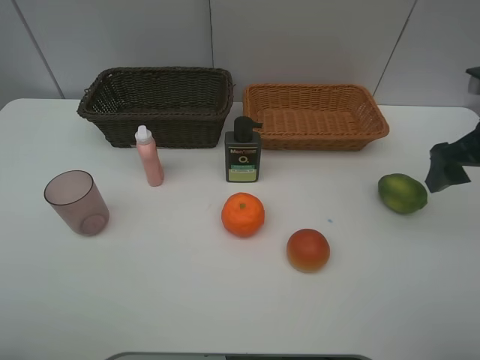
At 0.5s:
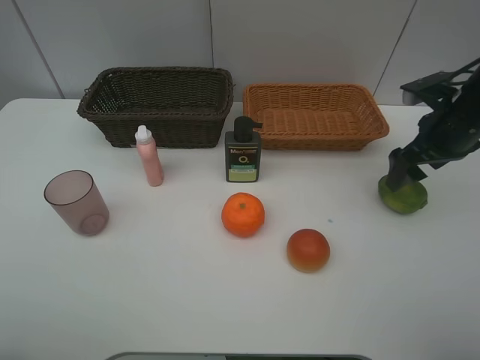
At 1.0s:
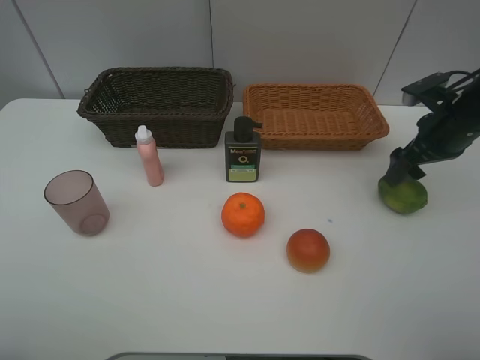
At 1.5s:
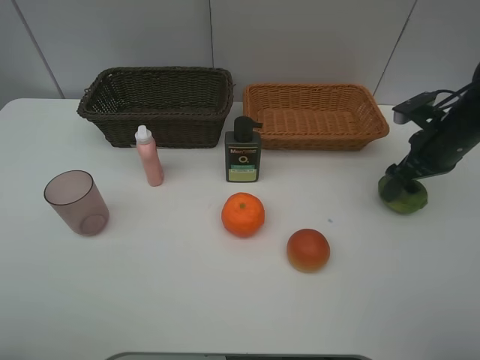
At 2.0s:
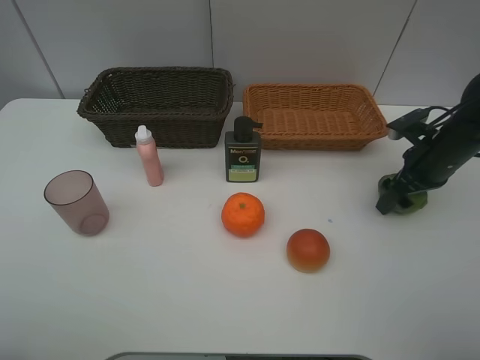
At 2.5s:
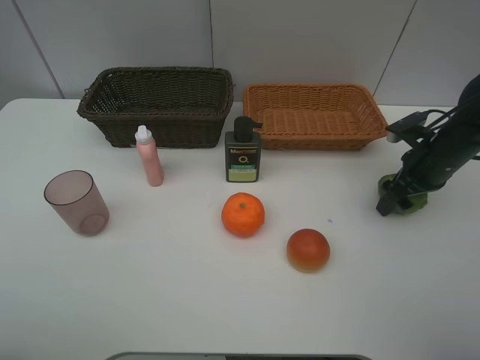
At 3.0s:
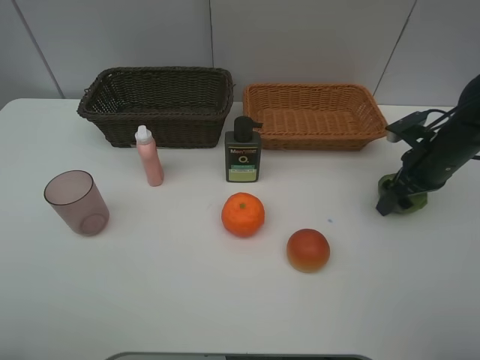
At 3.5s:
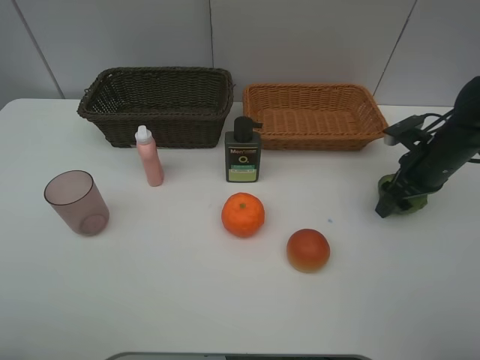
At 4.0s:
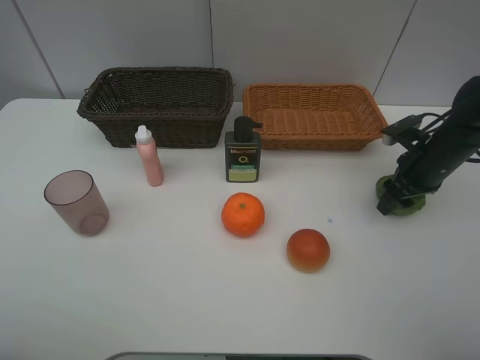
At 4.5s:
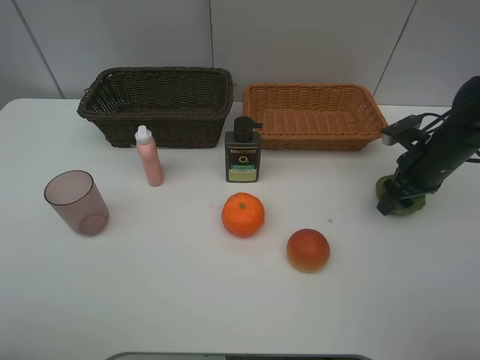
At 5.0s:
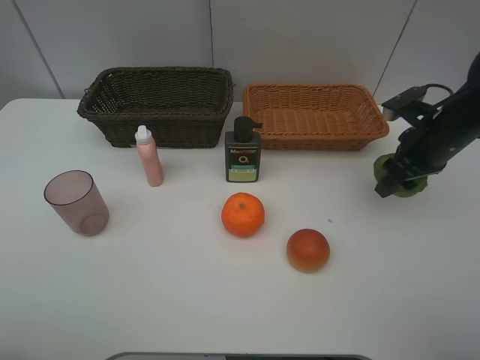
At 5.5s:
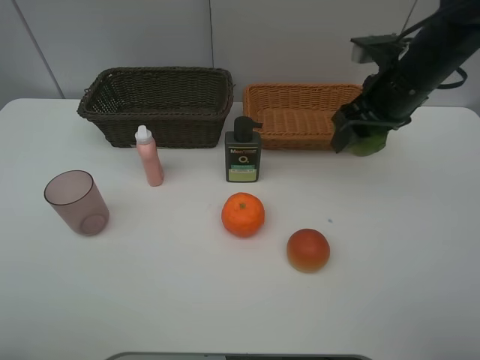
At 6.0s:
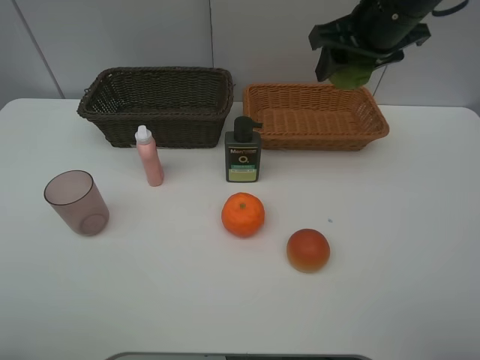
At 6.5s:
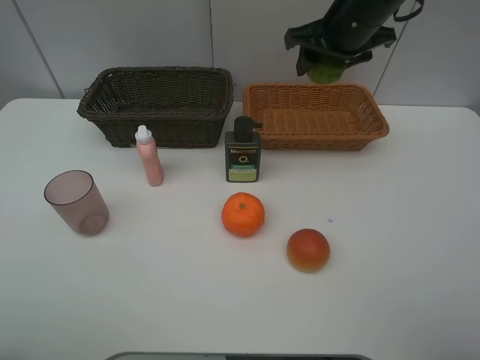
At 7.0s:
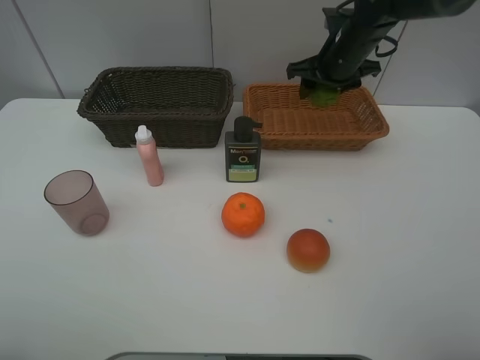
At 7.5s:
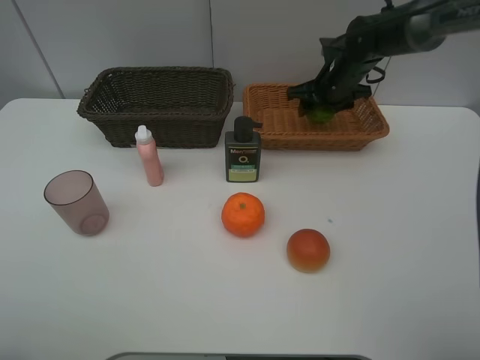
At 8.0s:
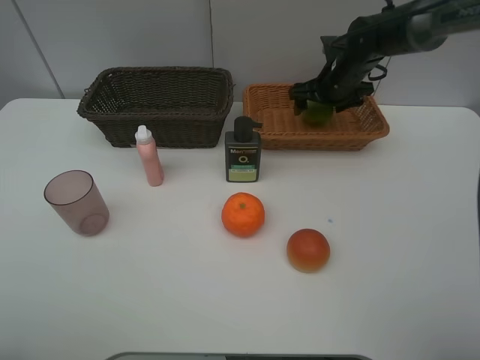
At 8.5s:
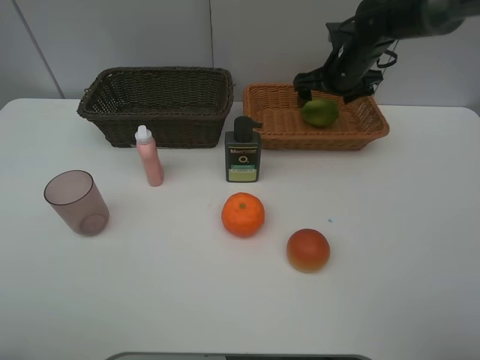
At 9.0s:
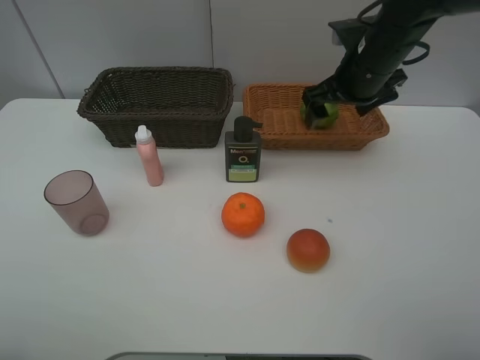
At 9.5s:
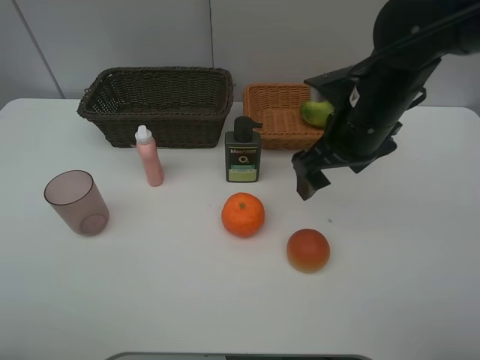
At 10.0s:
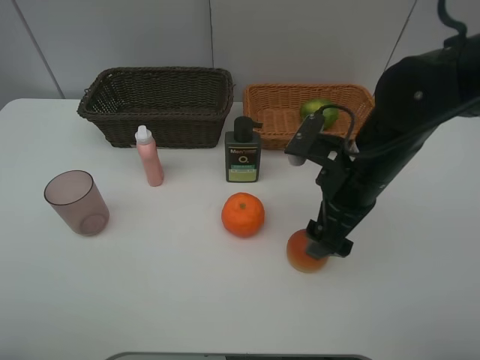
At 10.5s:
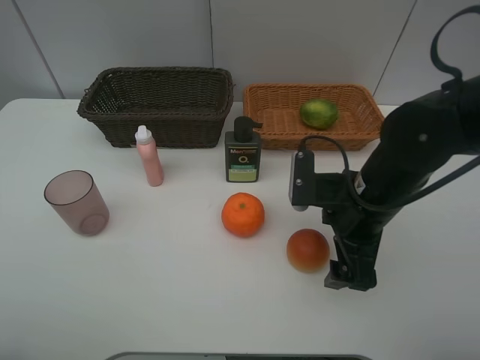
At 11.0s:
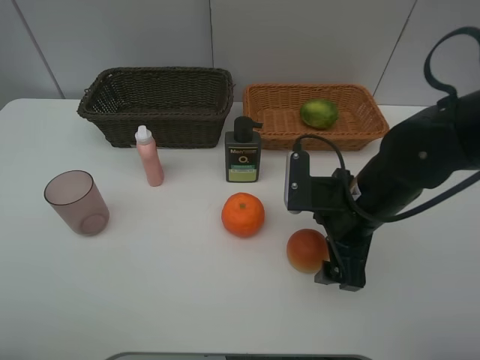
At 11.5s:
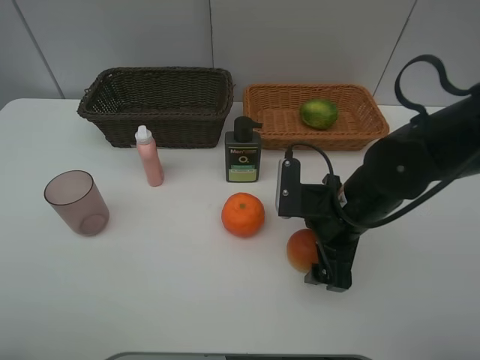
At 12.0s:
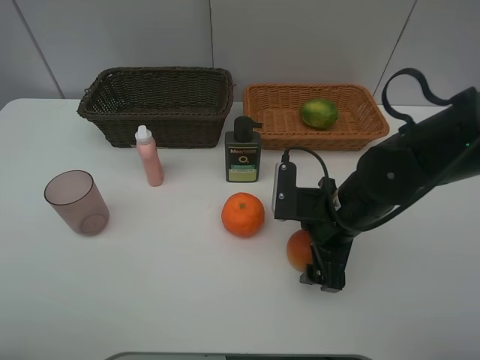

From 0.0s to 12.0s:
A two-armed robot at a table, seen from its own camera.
Task of the whole recording: place multiple objects separately in different baskets.
From 0.0s to 2.0s: The right gripper heads downward and forward, covering approximately 15 cm.
From 2.0s to 4.0s: The right gripper closes.
From 4.0s to 6.0s: The right gripper moves upward and to the left, some 25 cm.
From 6.0s to 8.0s: The right gripper goes approximately 20 cm downward and forward, and opens up.
From 8.0s to 10.0s: The right gripper travels backward by some 25 cm.
From 10.0s to 12.0s: The right gripper heads downward, covering roughly 5 cm.

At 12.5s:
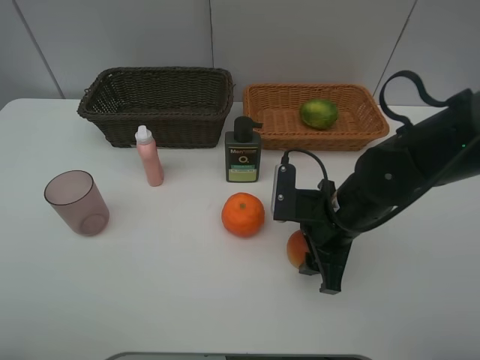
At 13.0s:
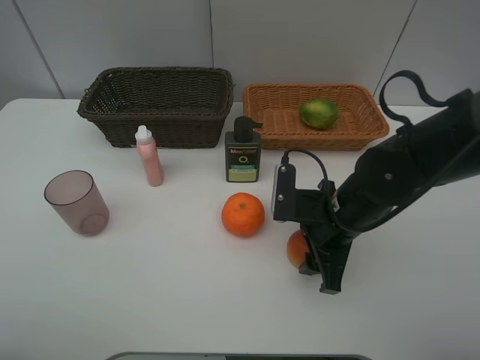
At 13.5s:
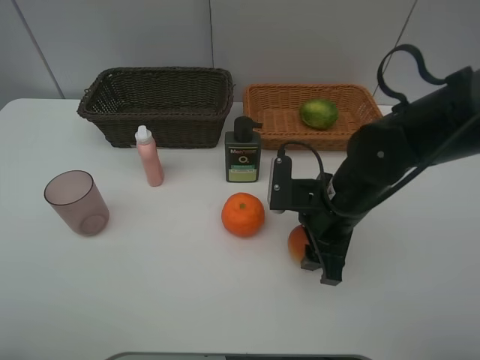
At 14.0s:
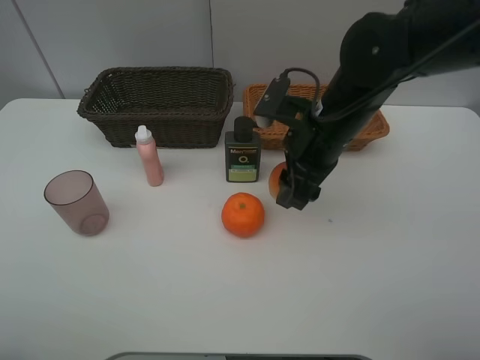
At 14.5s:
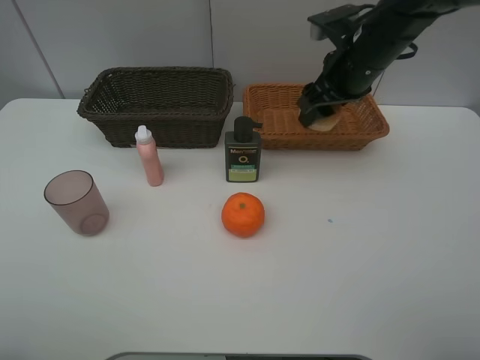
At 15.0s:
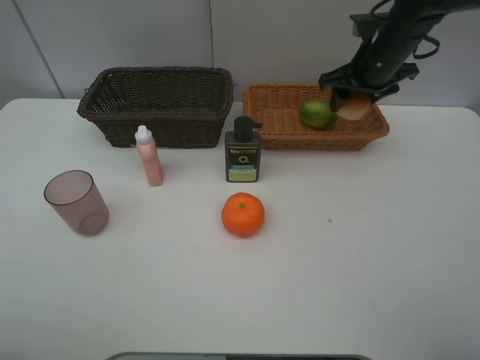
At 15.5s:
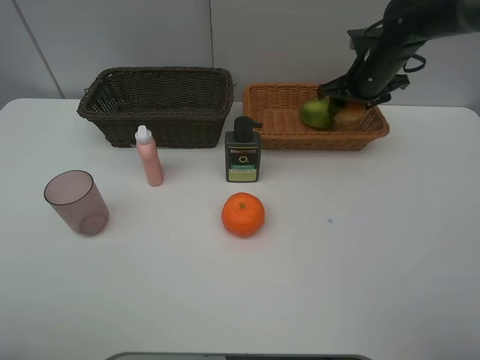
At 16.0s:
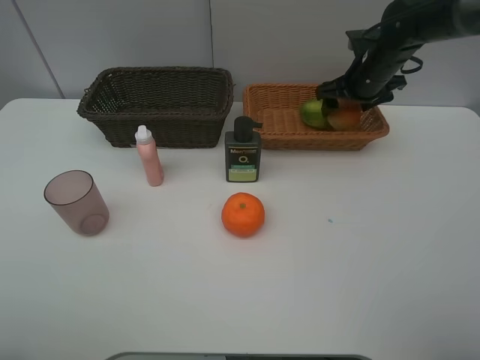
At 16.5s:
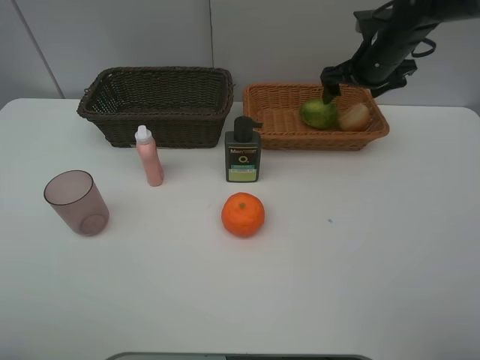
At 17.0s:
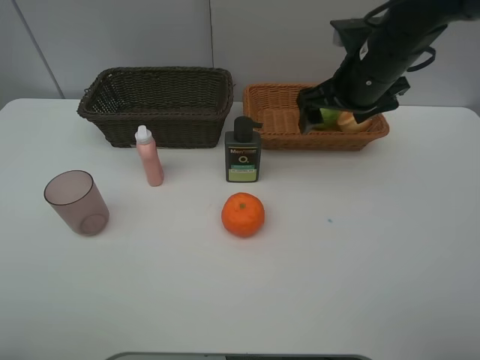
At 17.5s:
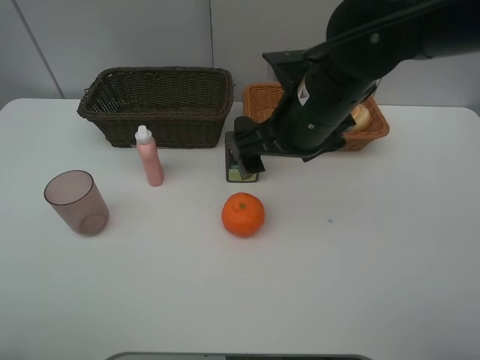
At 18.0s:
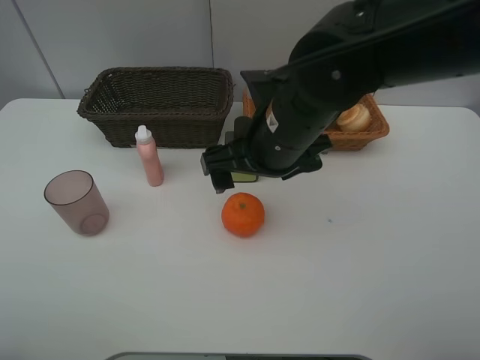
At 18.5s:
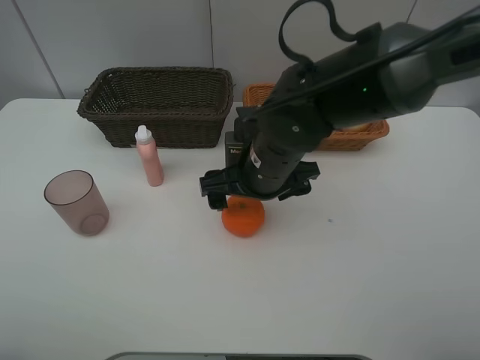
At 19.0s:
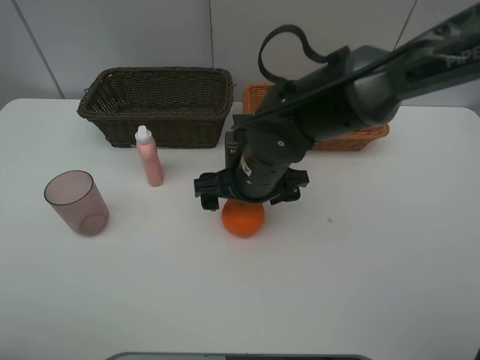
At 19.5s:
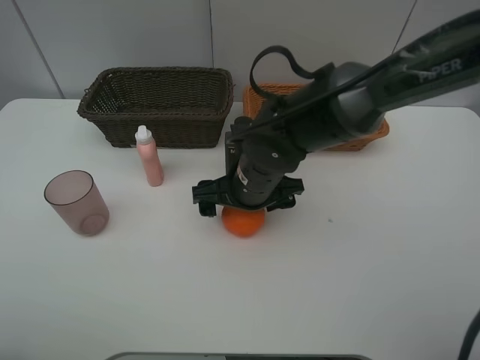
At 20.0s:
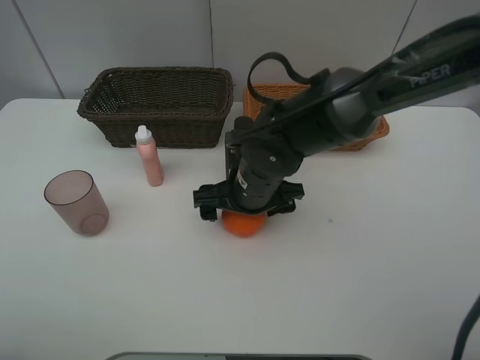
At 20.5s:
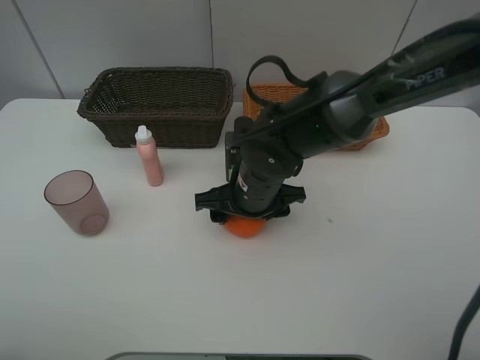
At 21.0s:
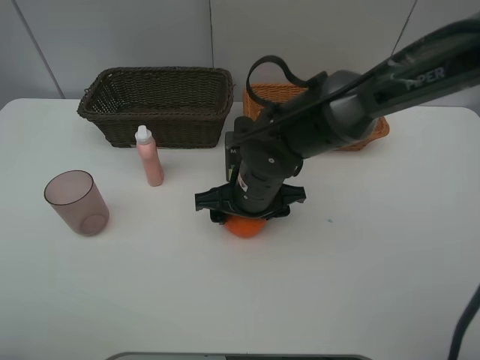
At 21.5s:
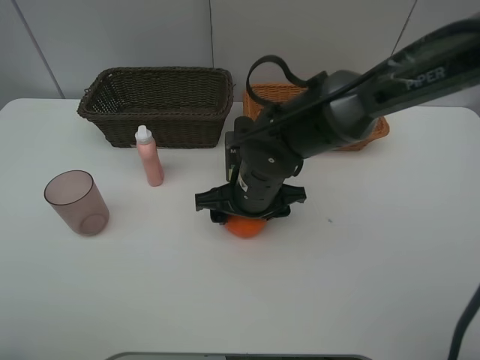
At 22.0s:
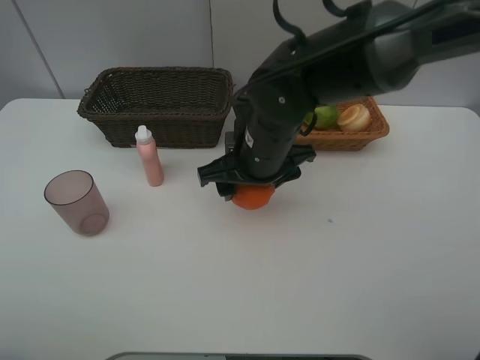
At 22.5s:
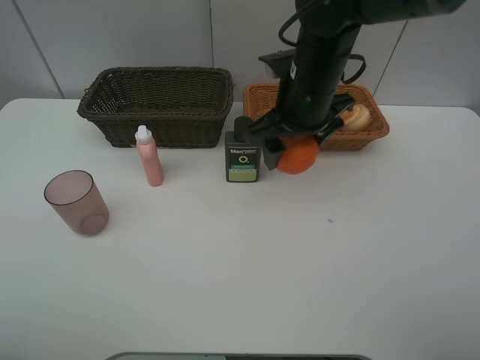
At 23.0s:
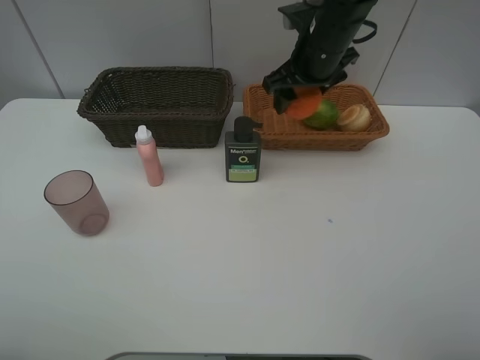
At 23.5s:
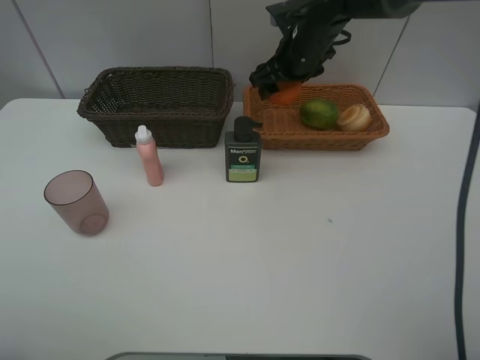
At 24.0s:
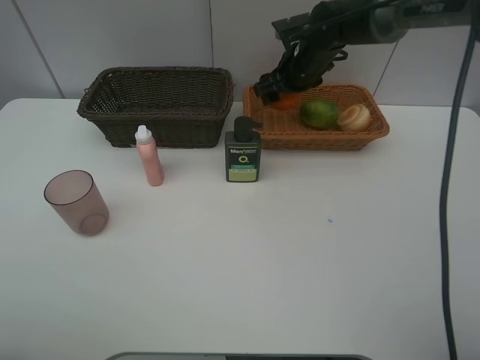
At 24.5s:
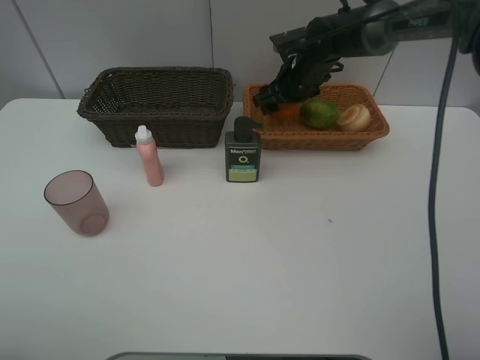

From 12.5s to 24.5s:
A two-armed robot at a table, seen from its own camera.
Task of the whole recording: place multiple objects separately in different baskets.
From 12.5s to 14.5s: The right gripper travels forward and upward by roughly 20 cm.
From 14.5s to 16.5s: The right gripper is displaced forward and to the right by approximately 10 cm, and opens.
From 16.5s to 18.5s: The right gripper goes approximately 25 cm to the left and backward.
From 18.5s to 20.5s: The right gripper moves about 5 cm, and closes its fingers.
From 20.5s to 22.5s: The right gripper is displaced upward, to the right and forward by some 15 cm.
From 22.5s to 24.5s: The right gripper heads forward and downward, covering some 15 cm.

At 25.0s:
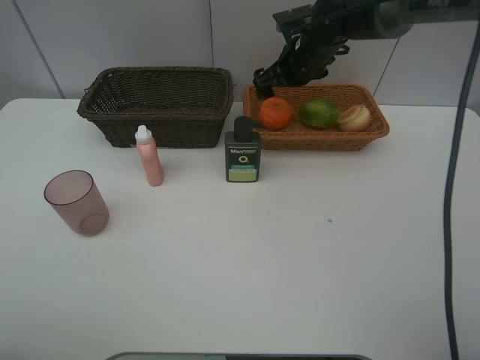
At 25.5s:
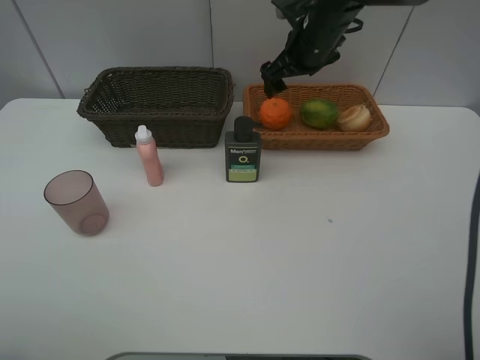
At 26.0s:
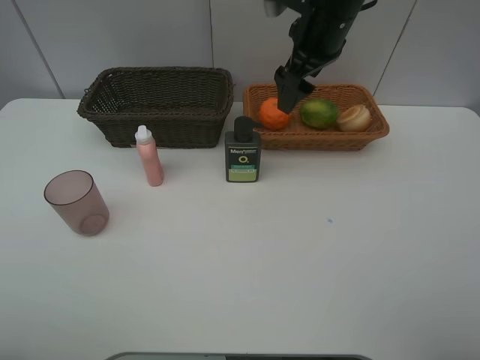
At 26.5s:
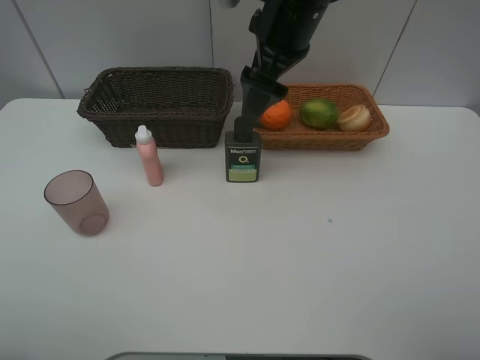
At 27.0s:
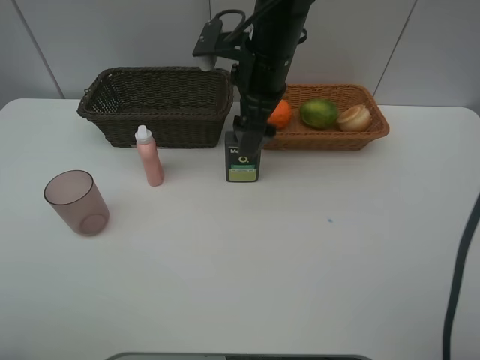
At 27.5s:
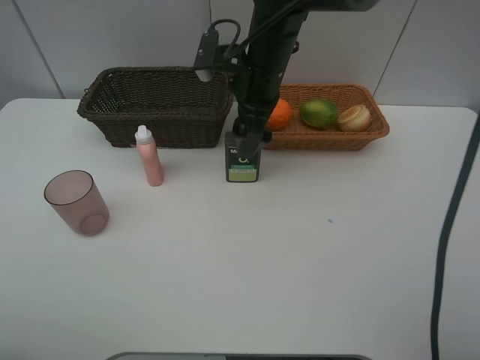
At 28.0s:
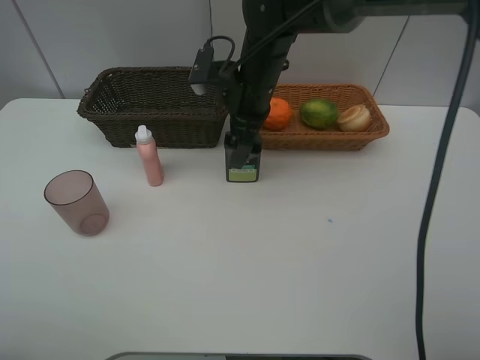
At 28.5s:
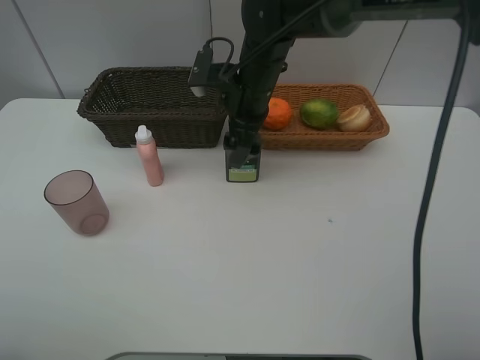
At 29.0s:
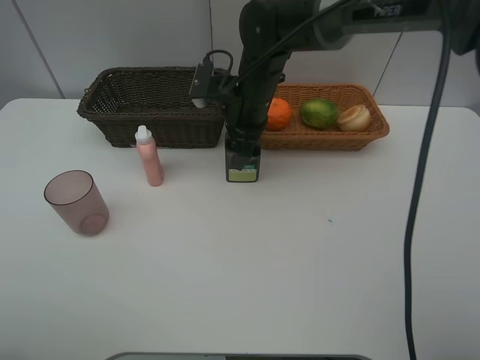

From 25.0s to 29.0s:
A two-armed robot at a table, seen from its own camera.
Task of the whole recording: place multiple objects separately in different baskets.
From 25.0s to 27.0s: The right gripper shifts approximately 15 cm backward and to the left.
From 27.0s to 29.0s: The right gripper moves downward, roughly 5 cm, and closes.
